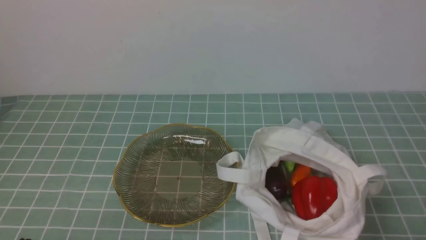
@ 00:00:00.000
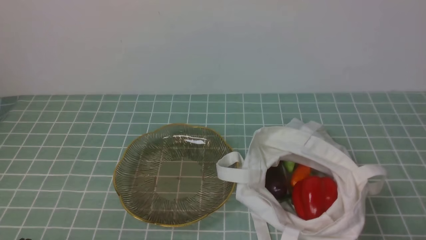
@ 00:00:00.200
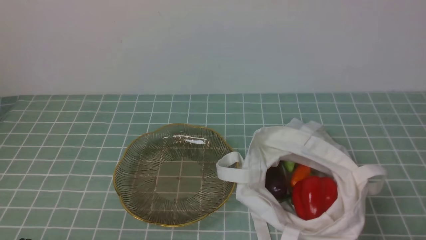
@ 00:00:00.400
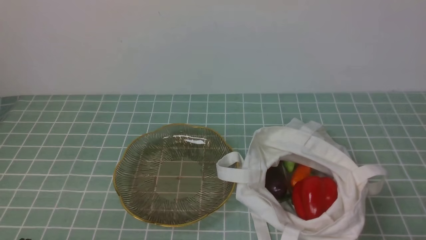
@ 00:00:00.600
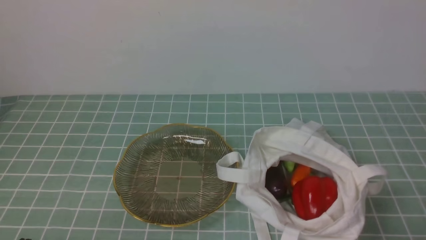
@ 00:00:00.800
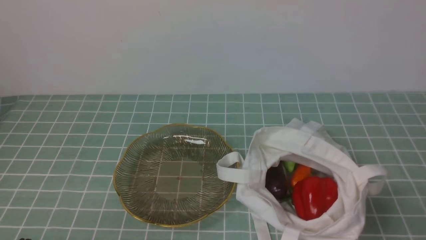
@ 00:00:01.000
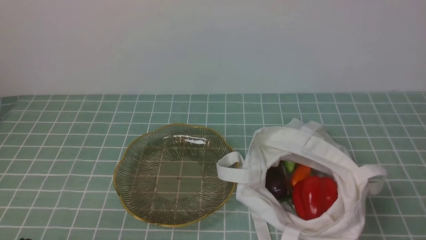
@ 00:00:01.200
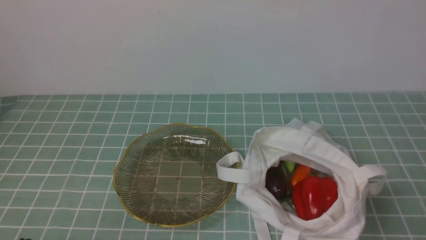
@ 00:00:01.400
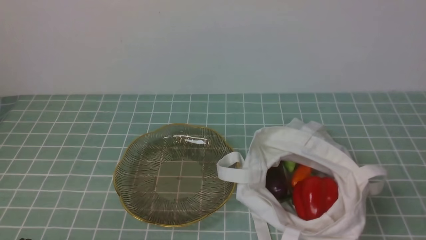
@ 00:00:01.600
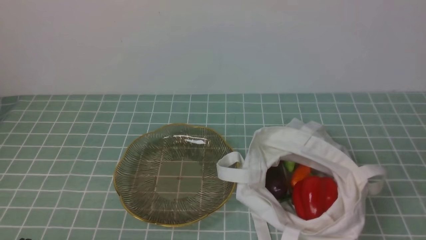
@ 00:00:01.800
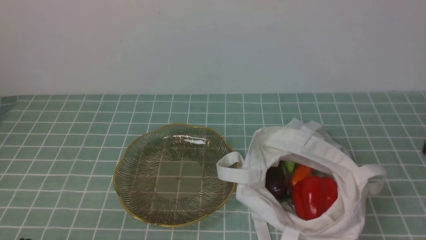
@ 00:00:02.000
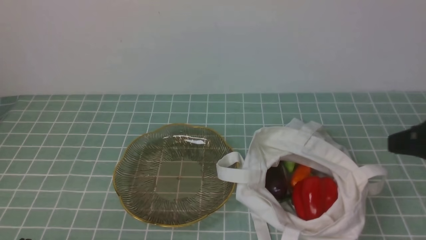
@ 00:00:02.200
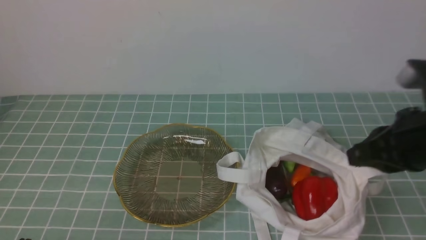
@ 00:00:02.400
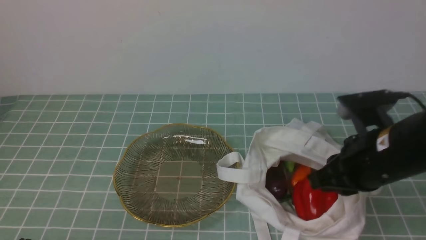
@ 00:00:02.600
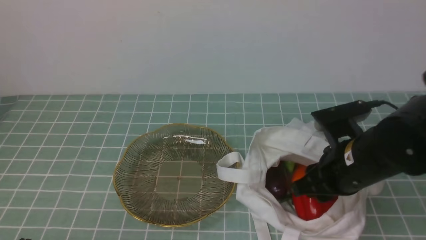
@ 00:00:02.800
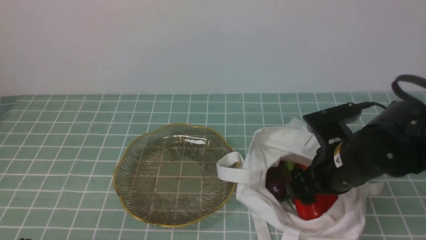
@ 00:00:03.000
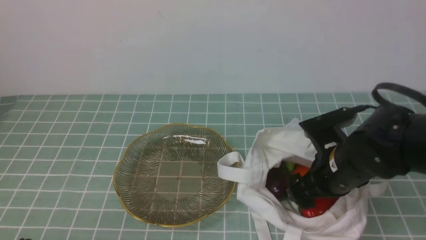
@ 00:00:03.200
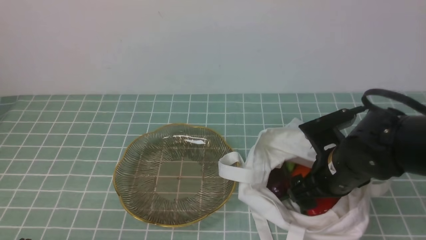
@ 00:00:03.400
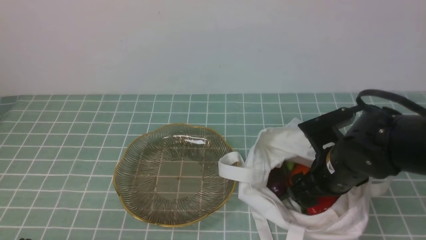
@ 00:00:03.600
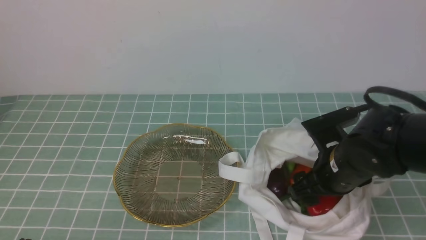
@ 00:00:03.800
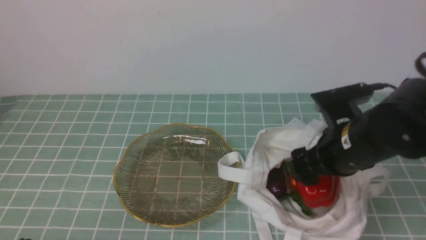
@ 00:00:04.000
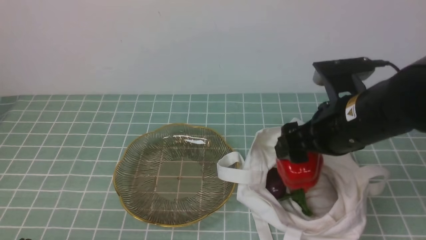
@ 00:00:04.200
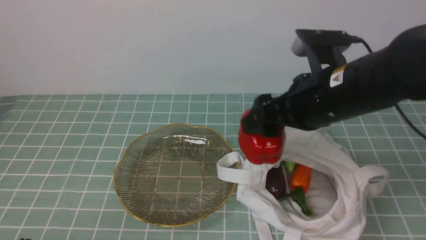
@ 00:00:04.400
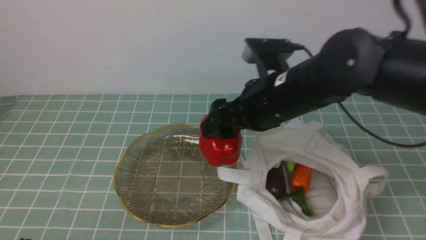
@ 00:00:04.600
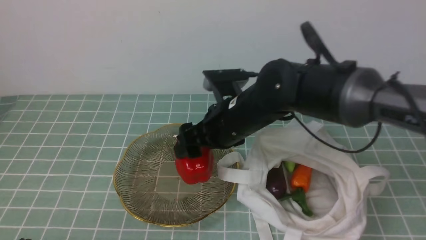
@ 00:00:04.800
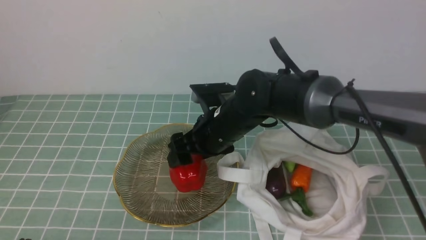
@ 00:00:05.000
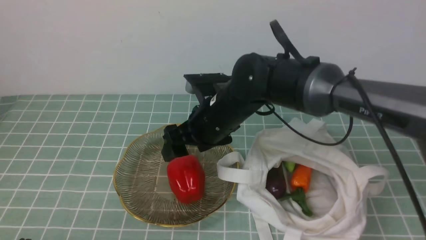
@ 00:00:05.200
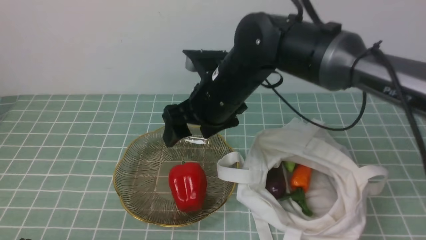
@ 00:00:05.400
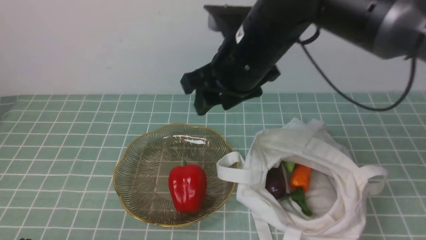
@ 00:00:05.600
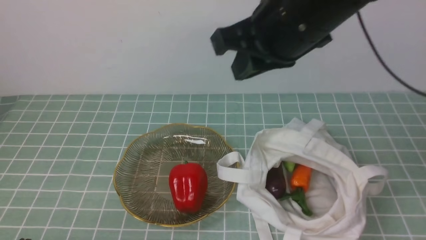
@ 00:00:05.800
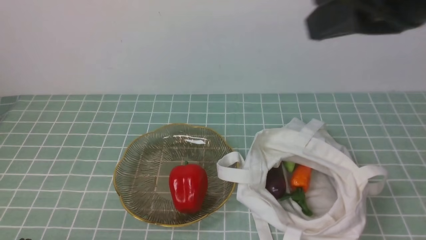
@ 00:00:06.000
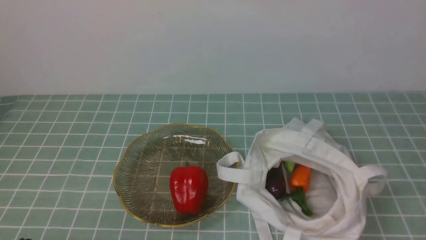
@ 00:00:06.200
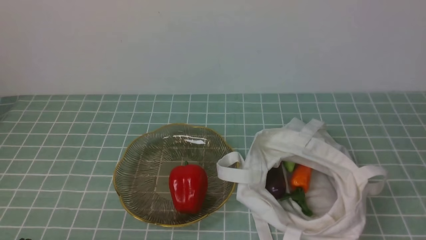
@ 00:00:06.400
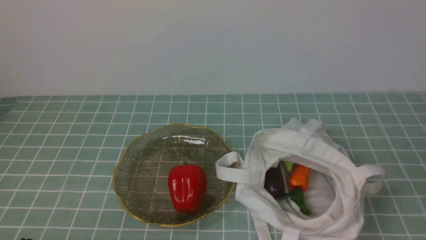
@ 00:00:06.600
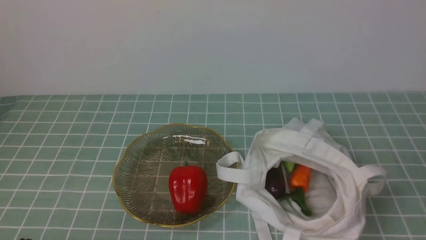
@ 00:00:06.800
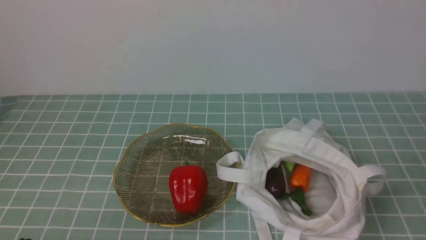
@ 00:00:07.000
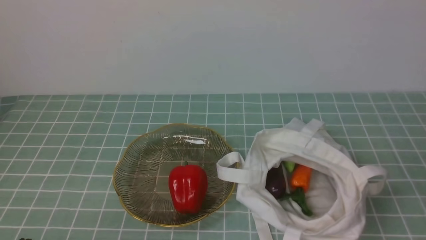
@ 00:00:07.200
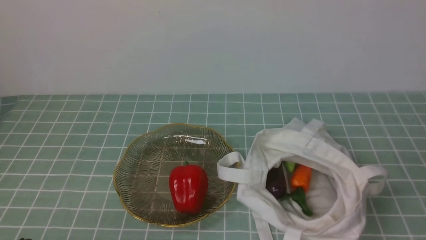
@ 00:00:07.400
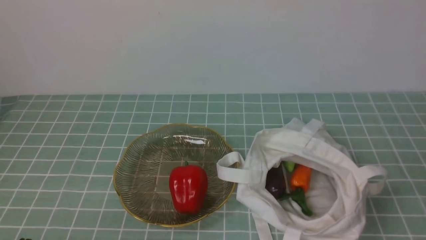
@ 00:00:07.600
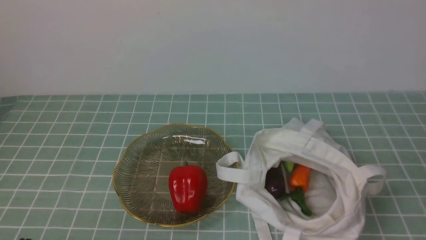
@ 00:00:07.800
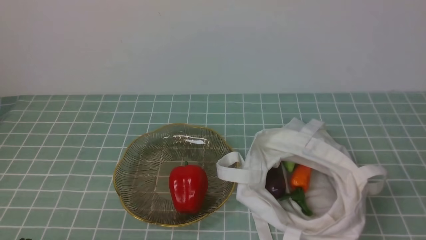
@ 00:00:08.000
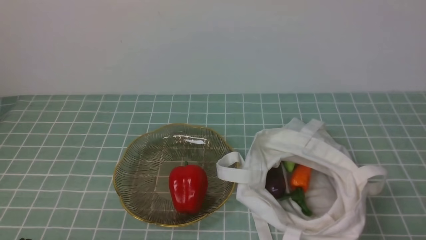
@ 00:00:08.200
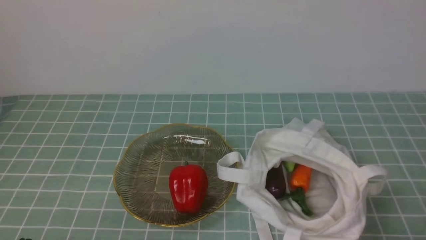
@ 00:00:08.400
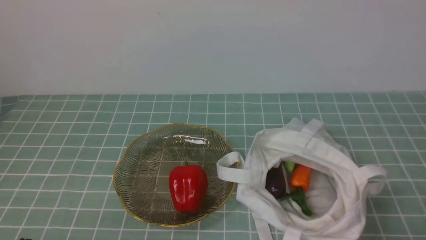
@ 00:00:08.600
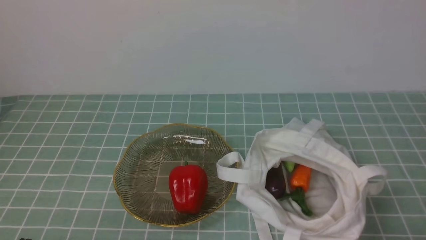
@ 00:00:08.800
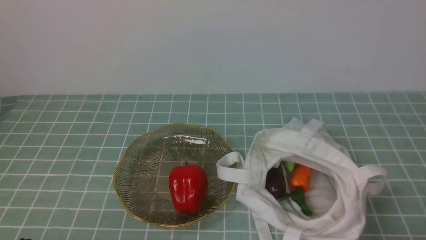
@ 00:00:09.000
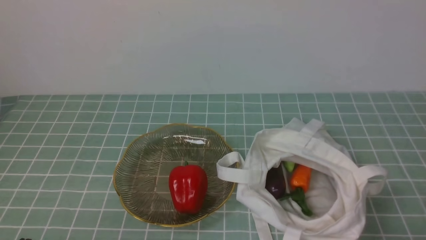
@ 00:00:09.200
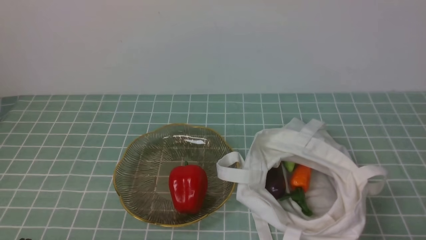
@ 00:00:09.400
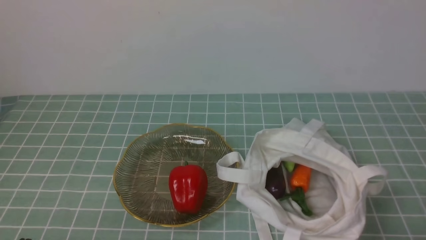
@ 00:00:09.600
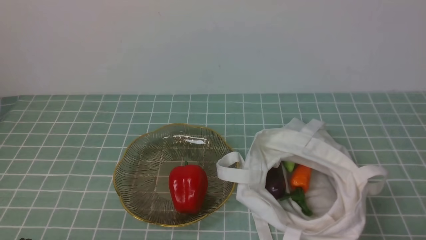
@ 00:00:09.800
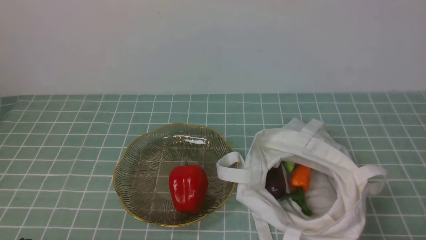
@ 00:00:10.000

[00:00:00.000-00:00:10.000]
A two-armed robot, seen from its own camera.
Task of the whole recording: take vegetables from cloth bag on blue coffee tablecloth place on plate.
Step, 00:00:00.000 to 00:00:03.800: Grasp the bell pepper with right gripper.
Step, 00:00:04.000 to 00:00:05.400: Place the bell pepper on the plate with right gripper.
00:00:01.400 to 00:00:02.800: The right gripper travels forward and to the left by approximately 25 cm, and opens up.
00:00:02.800 to 00:00:04.200: The right gripper travels upward by some 5 cm, and opens up.
00:00:04.200 to 00:00:05.800: The right gripper travels upward by roughly 15 cm, and closes up.
00:00:05.800 to 00:00:07.200: The right gripper shifts roughly 35 cm backward, to the right and downward.
00:00:08.600 to 00:00:10.000: The two grippers keep their place.
